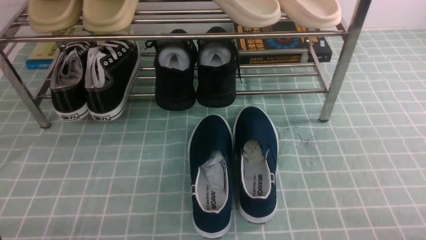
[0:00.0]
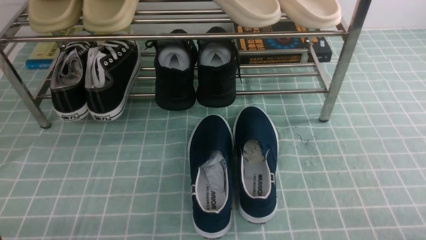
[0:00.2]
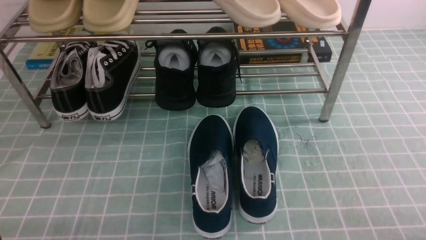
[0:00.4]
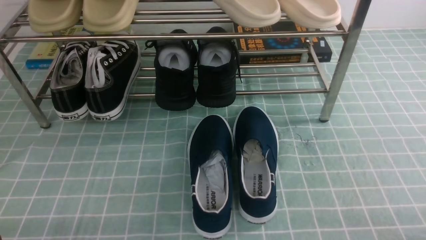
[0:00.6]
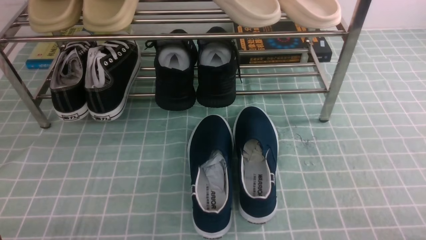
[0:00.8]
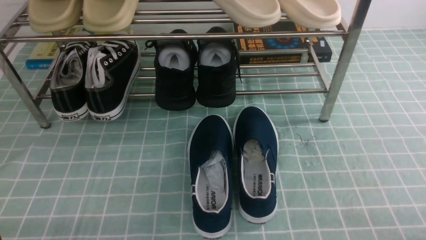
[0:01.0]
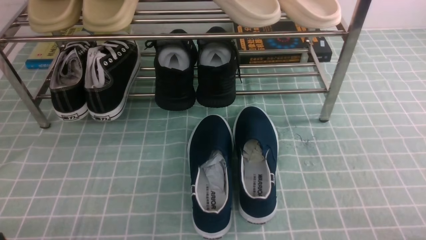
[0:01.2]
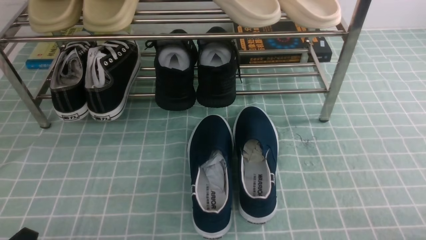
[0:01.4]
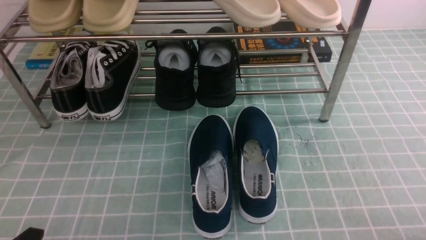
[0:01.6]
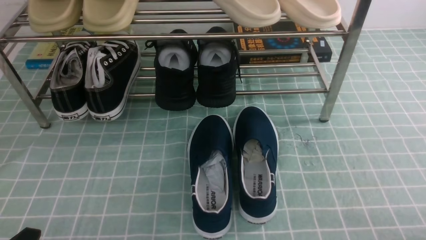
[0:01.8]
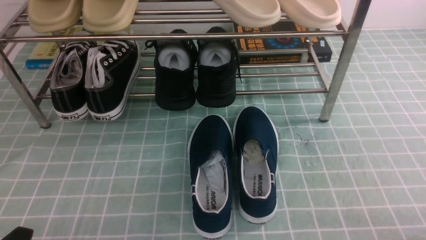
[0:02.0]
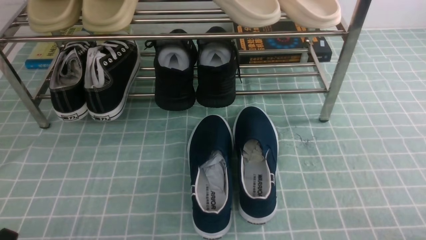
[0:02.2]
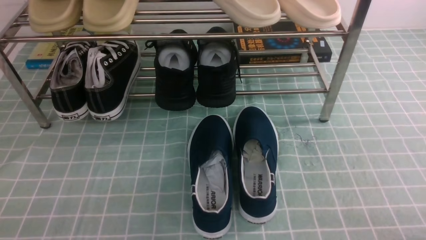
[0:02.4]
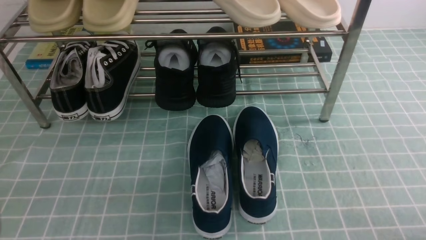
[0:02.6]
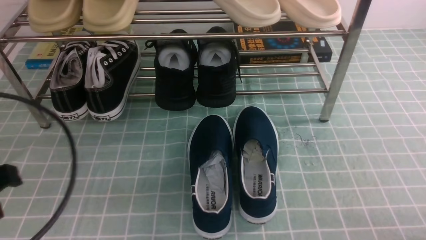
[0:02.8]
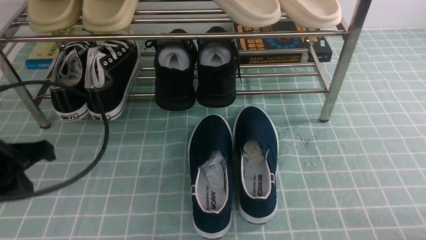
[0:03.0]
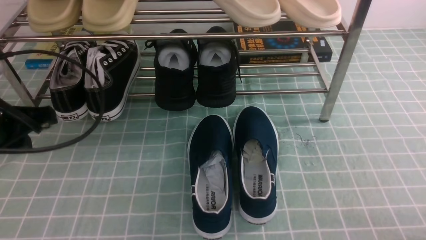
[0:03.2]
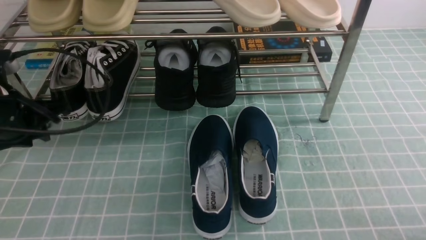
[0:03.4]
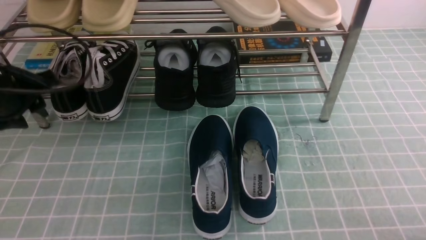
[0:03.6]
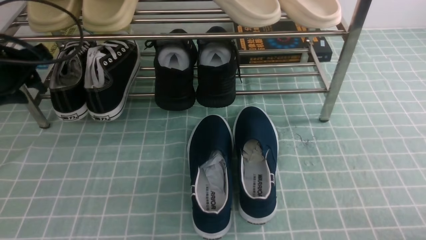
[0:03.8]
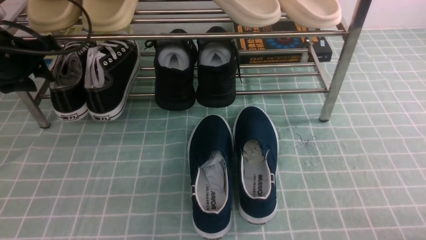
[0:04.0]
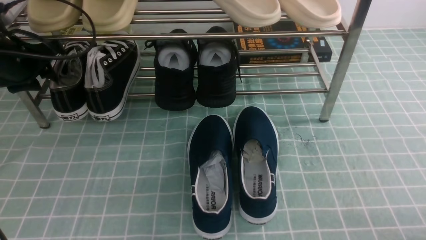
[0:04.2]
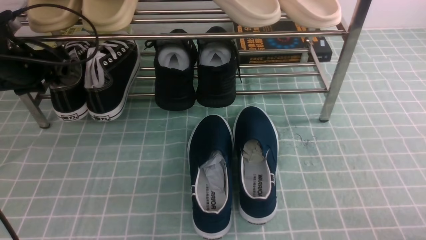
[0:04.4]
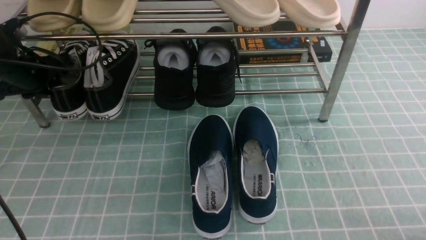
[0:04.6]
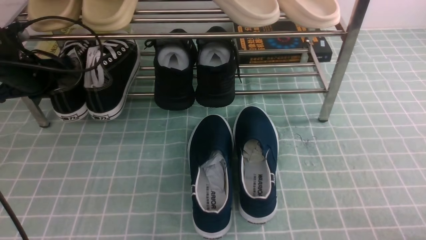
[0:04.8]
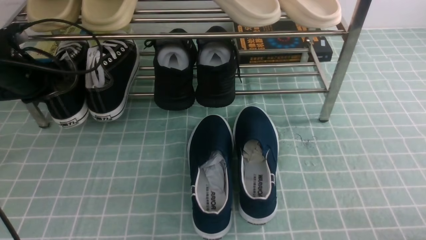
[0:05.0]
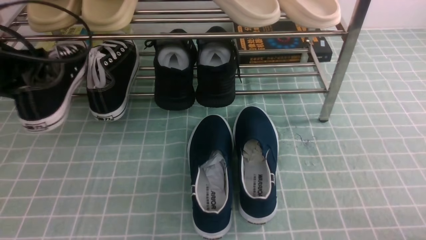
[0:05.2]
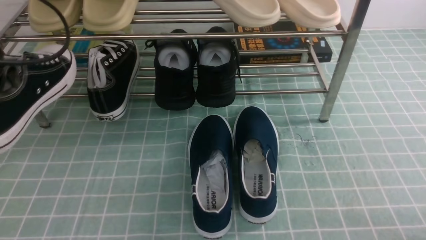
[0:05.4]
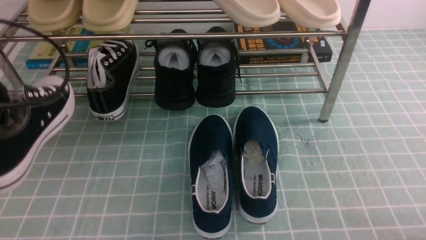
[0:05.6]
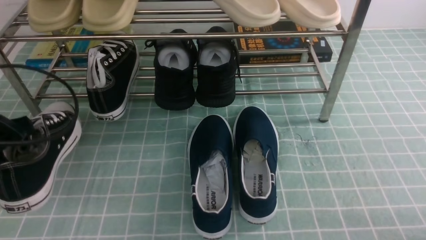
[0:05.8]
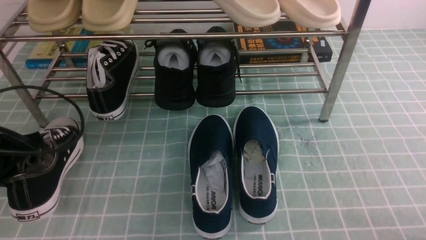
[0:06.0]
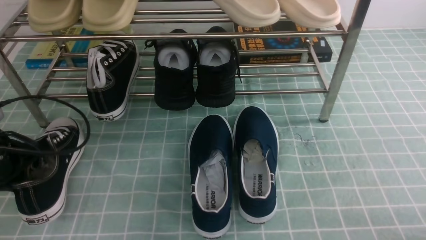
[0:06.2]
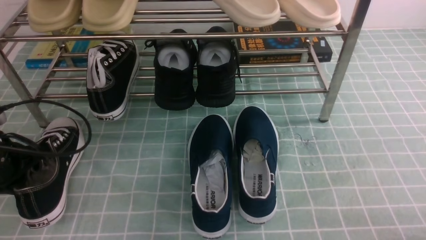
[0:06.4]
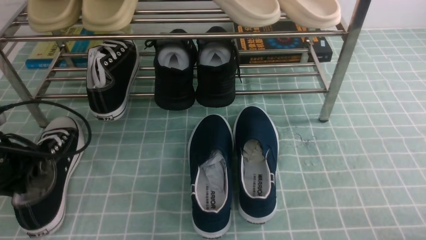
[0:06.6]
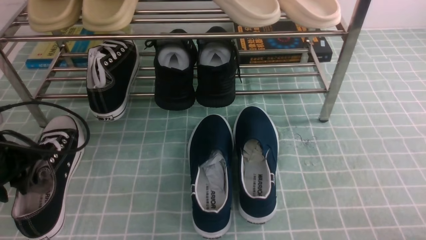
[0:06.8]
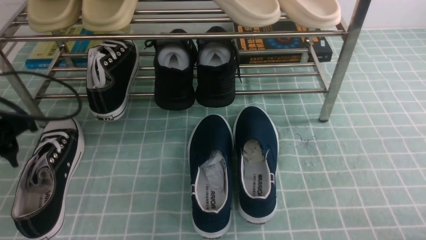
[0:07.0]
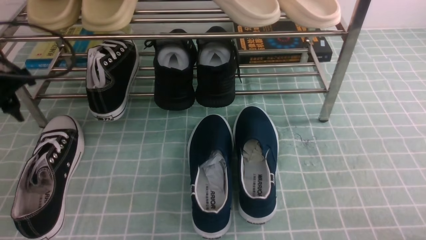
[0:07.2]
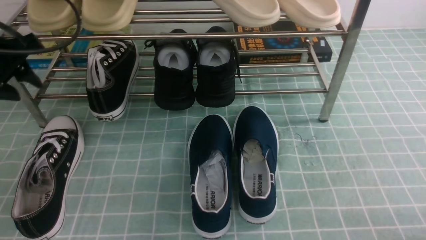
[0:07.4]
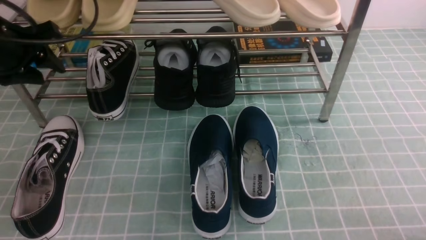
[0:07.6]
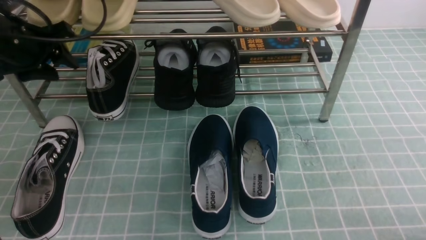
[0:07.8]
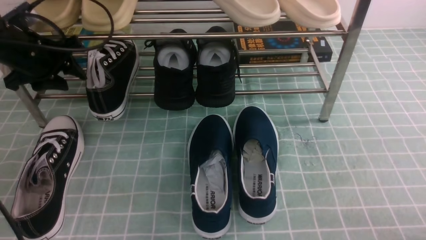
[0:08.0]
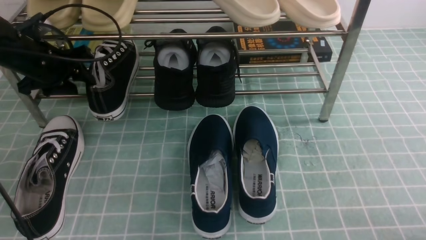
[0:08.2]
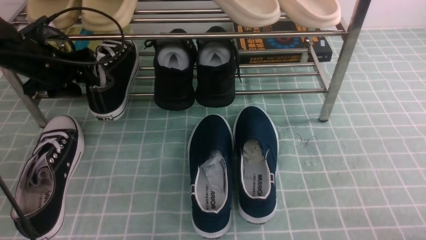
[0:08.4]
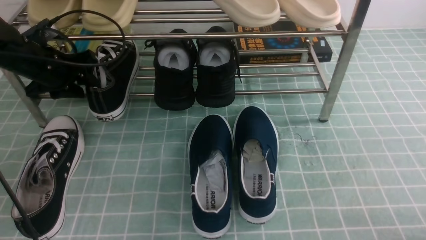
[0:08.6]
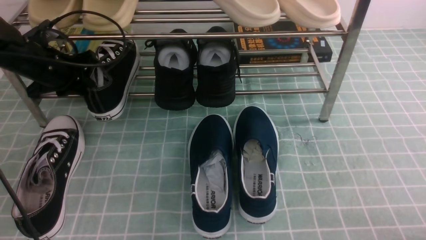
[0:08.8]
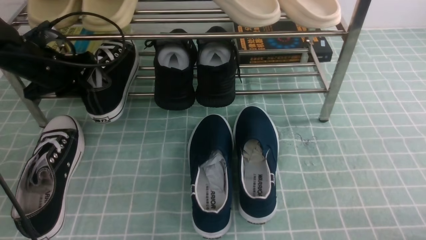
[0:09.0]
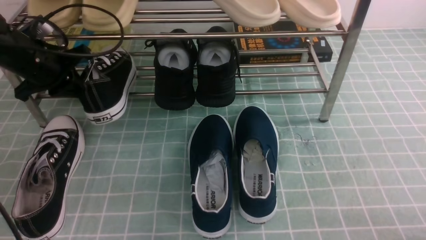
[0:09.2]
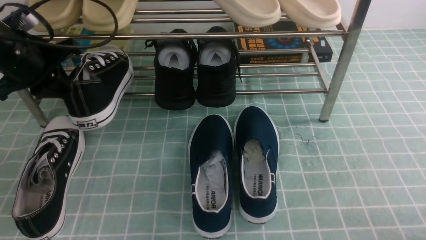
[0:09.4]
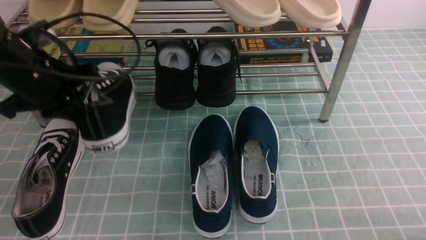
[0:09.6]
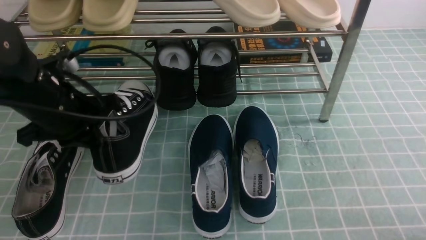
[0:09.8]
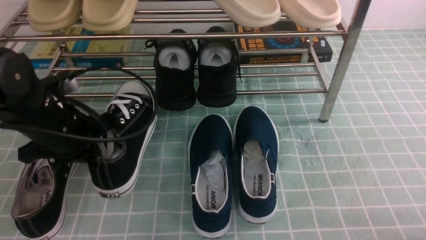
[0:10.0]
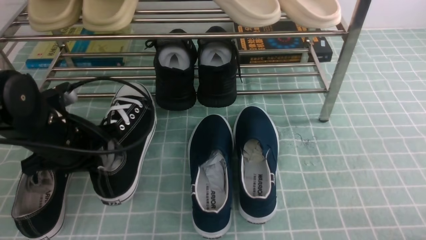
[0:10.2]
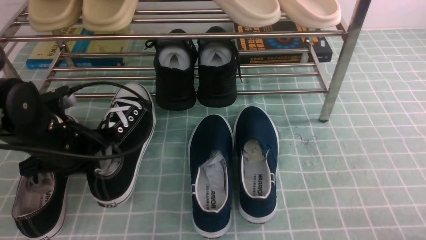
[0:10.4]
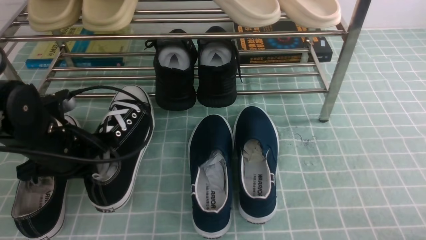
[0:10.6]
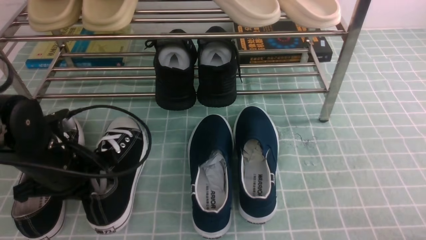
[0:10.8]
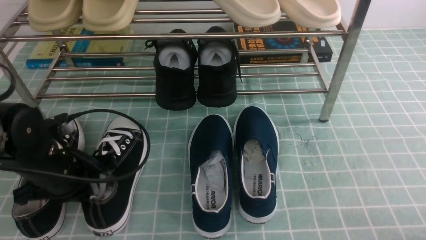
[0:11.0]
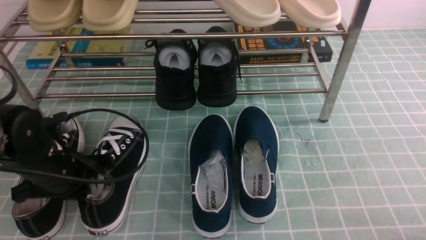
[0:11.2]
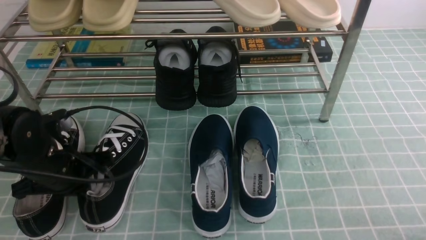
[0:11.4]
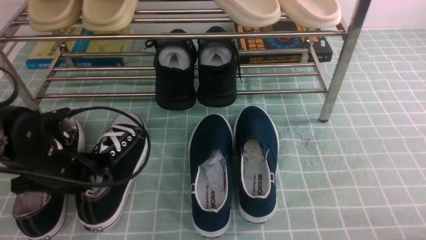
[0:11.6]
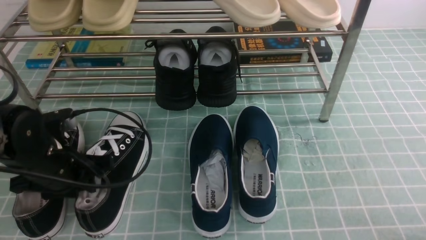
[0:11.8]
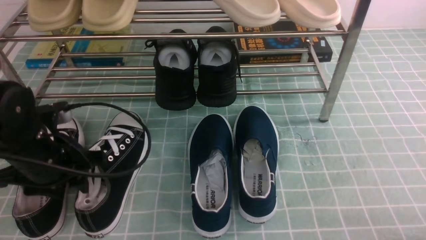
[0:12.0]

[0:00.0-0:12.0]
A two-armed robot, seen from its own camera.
Step, 0:00.0 to 0:05.0: use the left arm to clamp a shoe on the left side of the shoe rack.
Step, 0:05.2 to 0:06.8: Use your left arm to remove the clamped shoe from the shoe rack and put it down.
Step, 0:07.0 to 0:09.0: use the left arm to clamp a shoe on the left side of the shoe rack.
0:01.6 to 0:03.0: The left gripper moves forward and upward, roughly 20 cm, and closes.
0:03.0 to 0:04.4: The left gripper is displaced forward by some 20 cm, and opens.
0:04.4 to 0:06.0: The left gripper travels backward by about 15 cm, and closes its fingers.
0:06.0 to 0:07.6: The left gripper is displaced forward and upward by some 15 cm, and opens its fingers.
0:07.6 to 0:09.0: The left gripper travels downward and forward by some 10 cm, and closes.
0:09.0 to 0:10.4: The left gripper goes approximately 15 cm backward and to the right.
0:10.4 to 0:12.0: The left gripper opens its fingers.

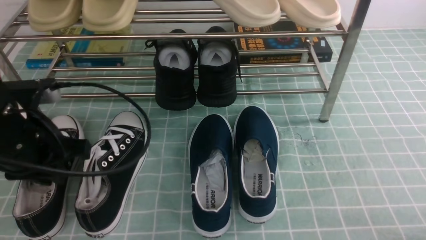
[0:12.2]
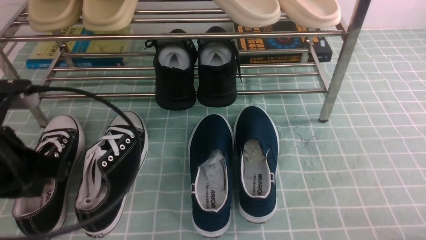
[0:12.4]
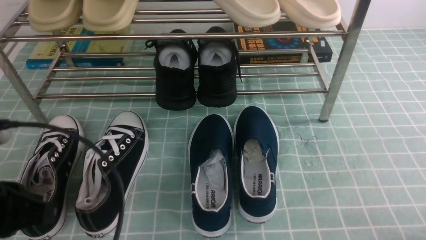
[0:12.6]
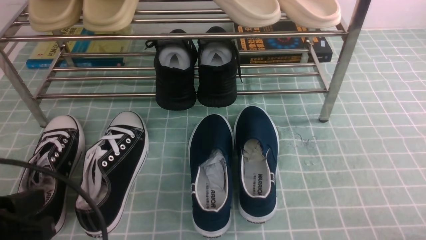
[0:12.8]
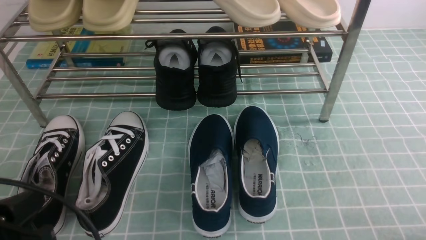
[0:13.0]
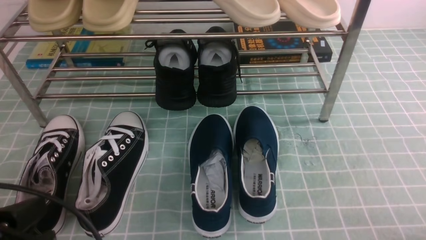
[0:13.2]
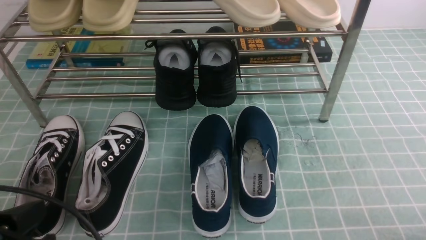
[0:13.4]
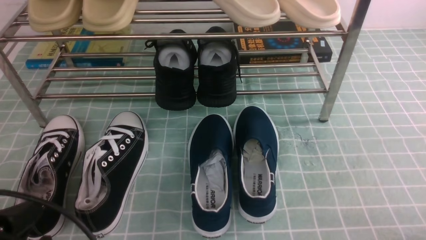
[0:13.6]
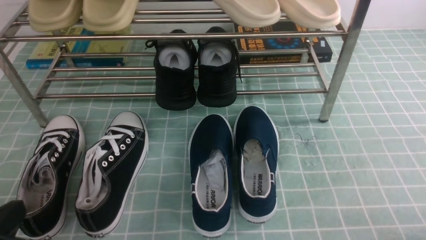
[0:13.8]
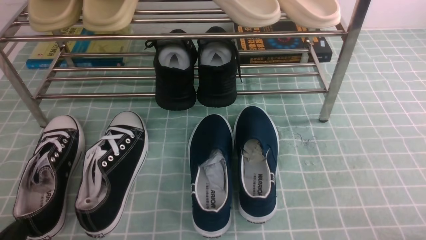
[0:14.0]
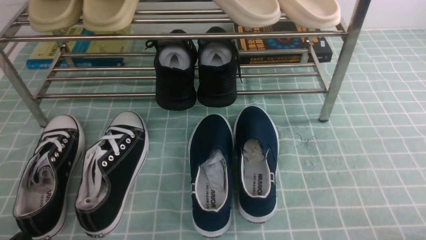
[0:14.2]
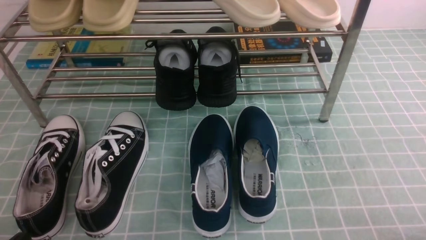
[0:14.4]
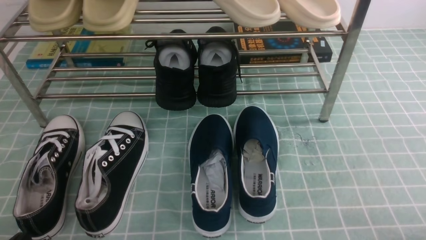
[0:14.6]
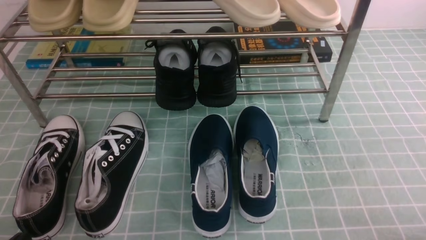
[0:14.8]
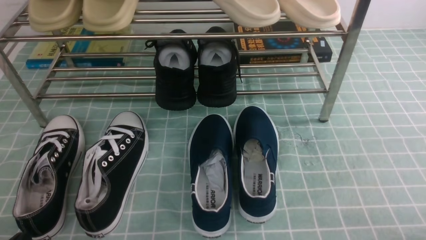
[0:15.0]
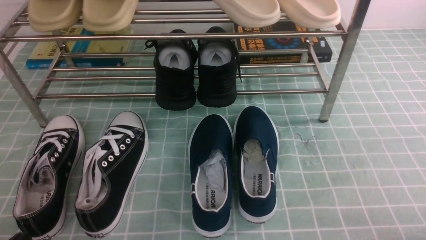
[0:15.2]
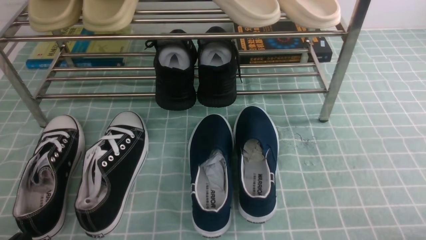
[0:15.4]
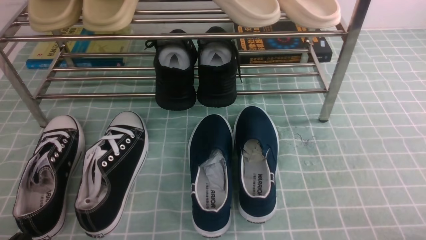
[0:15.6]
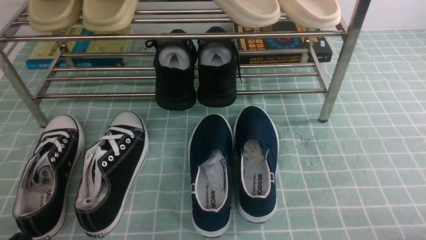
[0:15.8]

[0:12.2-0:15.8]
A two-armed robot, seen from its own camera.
0:12.2 to 0:14.0: The left gripper heads backward and downward, covering roughly 20 cm.

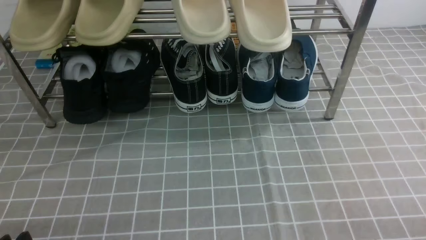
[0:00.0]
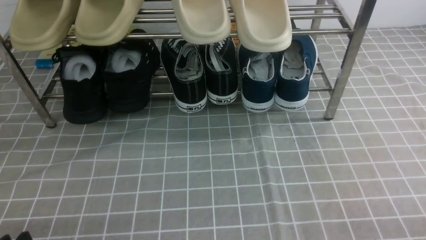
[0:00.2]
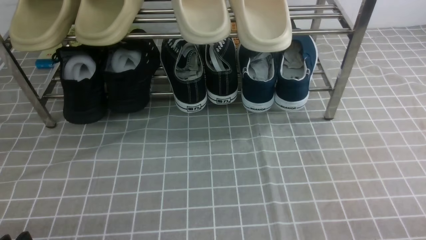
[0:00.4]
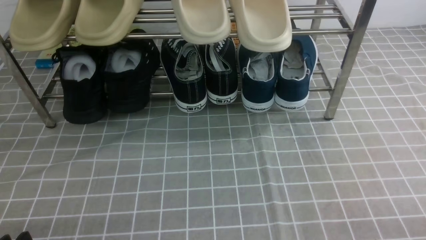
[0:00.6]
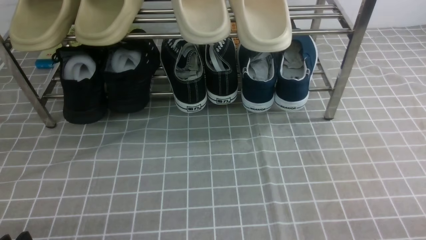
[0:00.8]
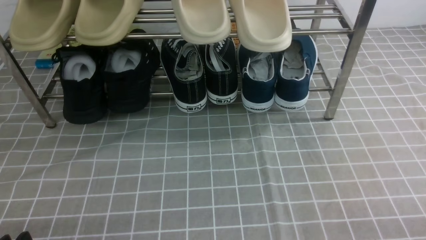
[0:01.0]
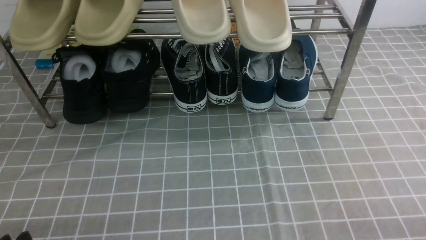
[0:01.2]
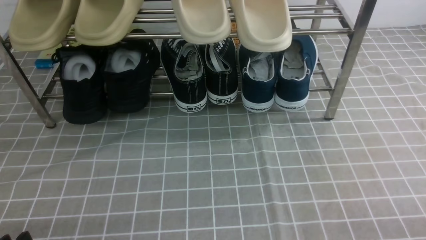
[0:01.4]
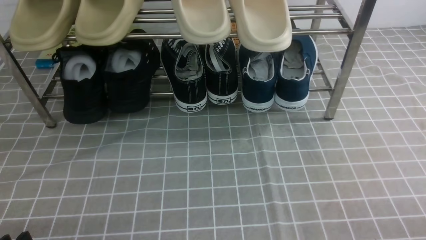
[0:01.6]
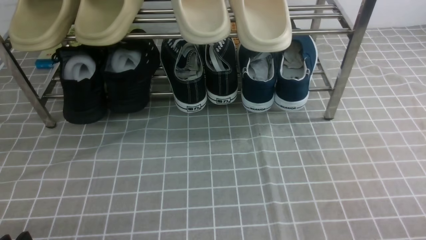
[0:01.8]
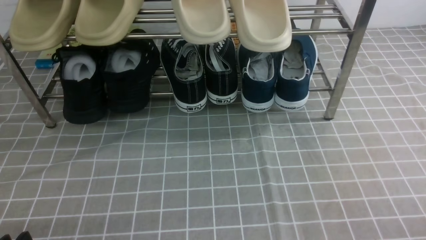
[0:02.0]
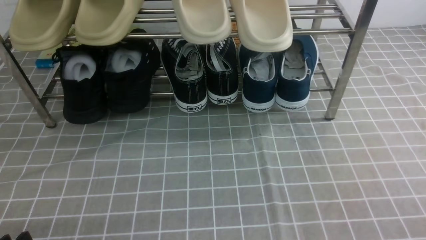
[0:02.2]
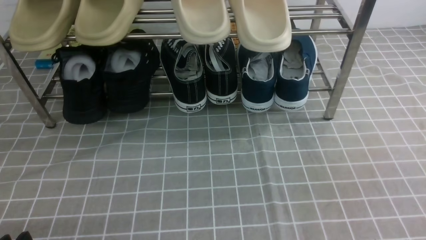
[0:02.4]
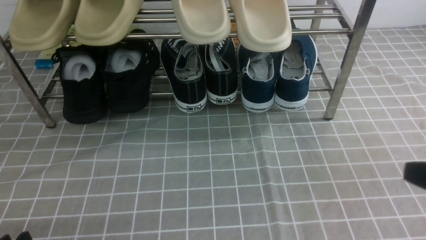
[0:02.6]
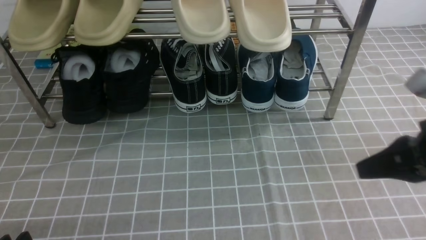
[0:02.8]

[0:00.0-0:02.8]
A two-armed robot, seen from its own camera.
0:01.4 to 0:02.8: The right gripper moves forward, upward and to the left, some 20 cm, and closes.
